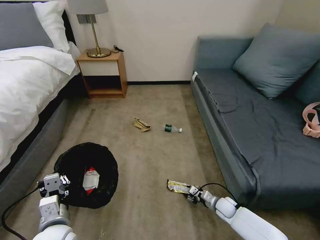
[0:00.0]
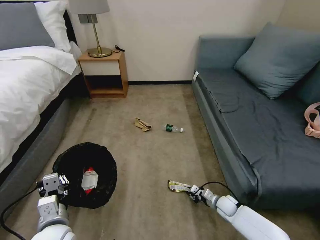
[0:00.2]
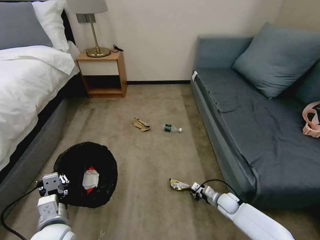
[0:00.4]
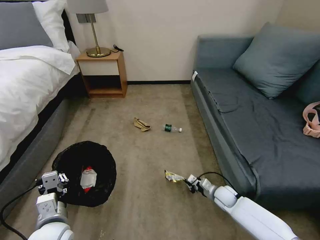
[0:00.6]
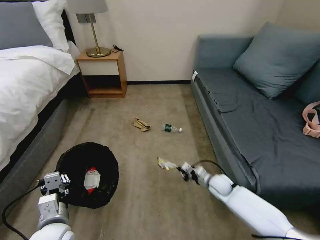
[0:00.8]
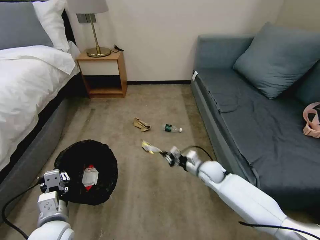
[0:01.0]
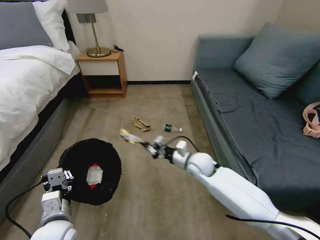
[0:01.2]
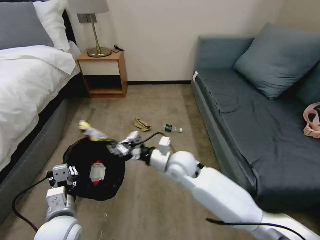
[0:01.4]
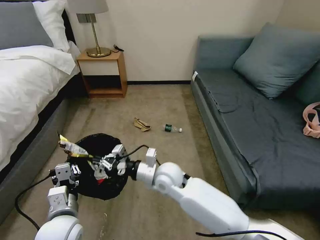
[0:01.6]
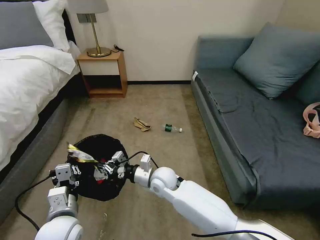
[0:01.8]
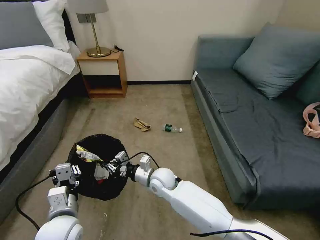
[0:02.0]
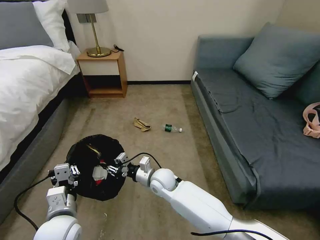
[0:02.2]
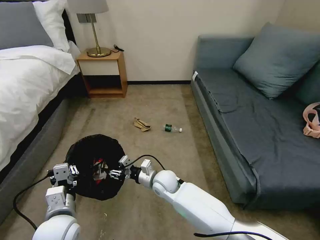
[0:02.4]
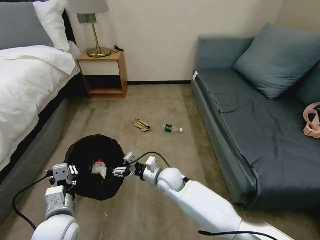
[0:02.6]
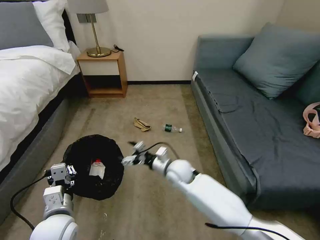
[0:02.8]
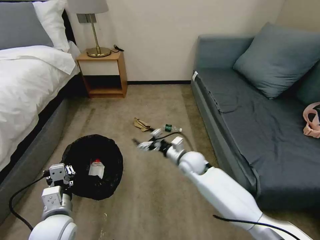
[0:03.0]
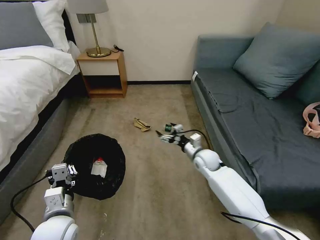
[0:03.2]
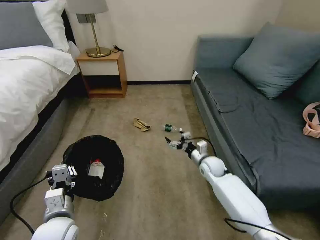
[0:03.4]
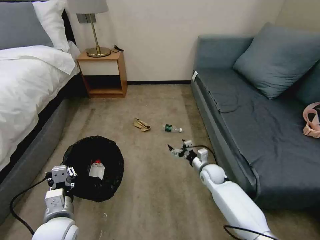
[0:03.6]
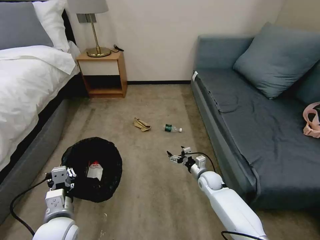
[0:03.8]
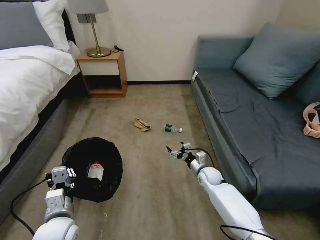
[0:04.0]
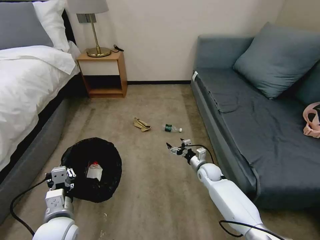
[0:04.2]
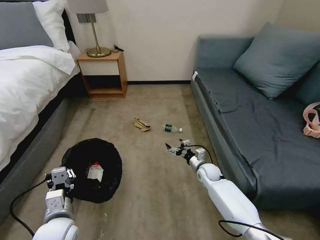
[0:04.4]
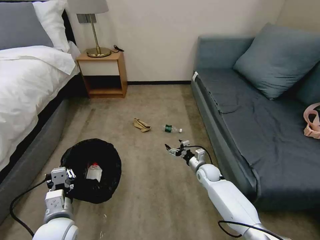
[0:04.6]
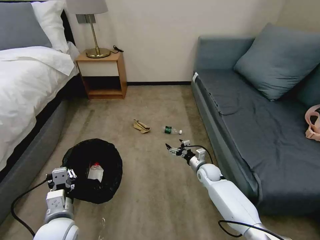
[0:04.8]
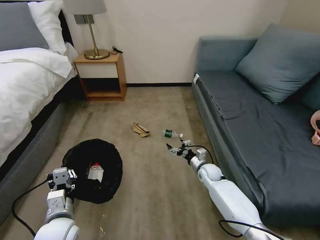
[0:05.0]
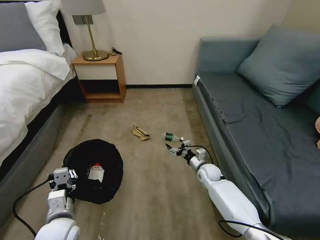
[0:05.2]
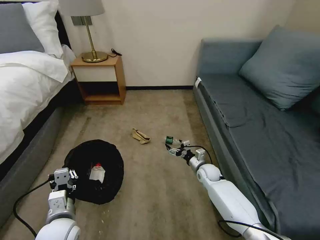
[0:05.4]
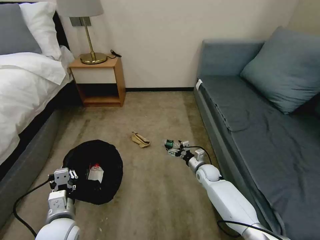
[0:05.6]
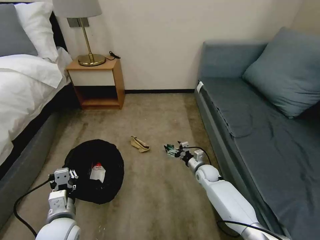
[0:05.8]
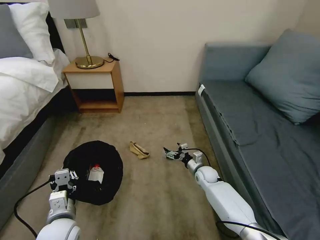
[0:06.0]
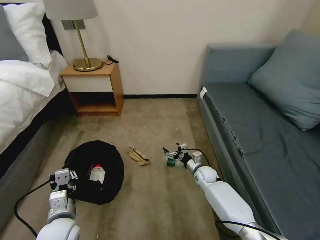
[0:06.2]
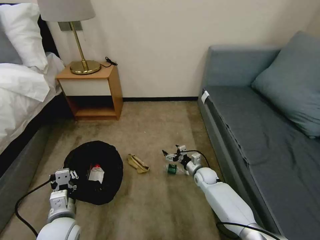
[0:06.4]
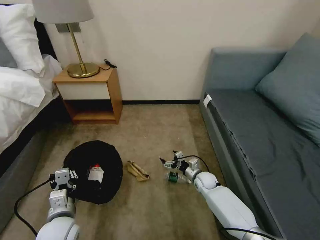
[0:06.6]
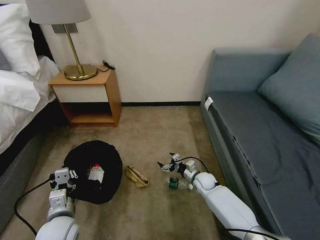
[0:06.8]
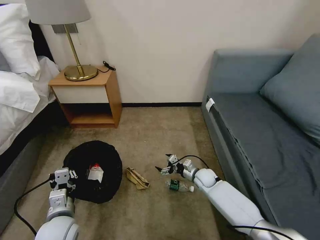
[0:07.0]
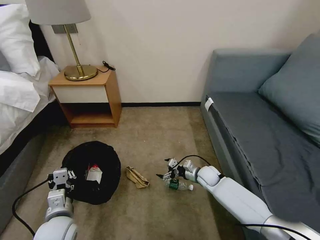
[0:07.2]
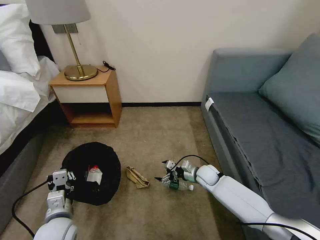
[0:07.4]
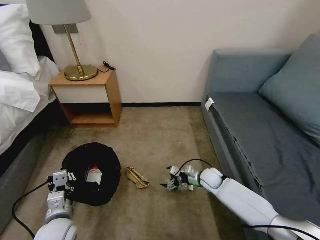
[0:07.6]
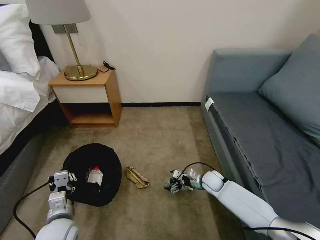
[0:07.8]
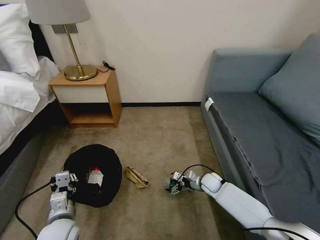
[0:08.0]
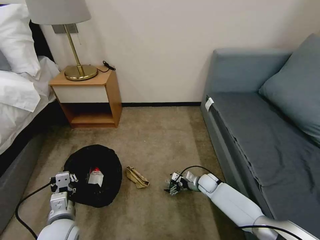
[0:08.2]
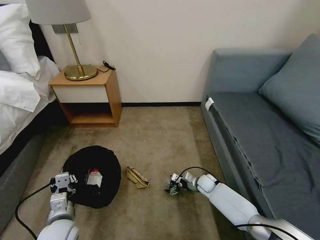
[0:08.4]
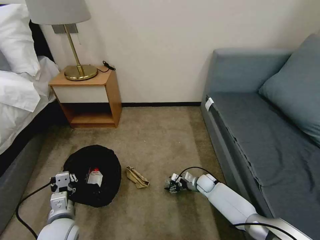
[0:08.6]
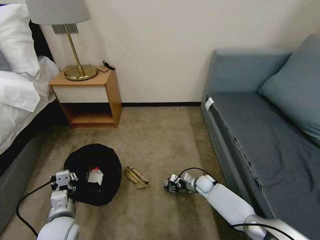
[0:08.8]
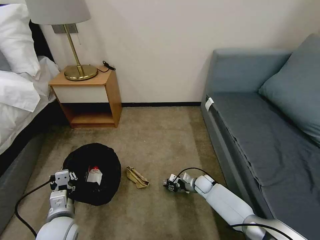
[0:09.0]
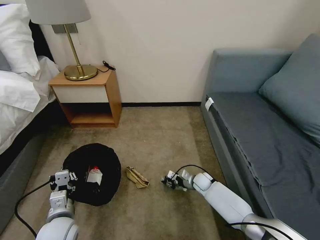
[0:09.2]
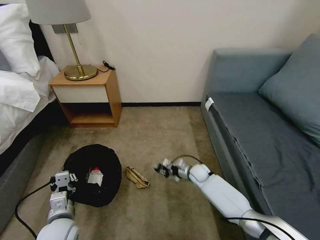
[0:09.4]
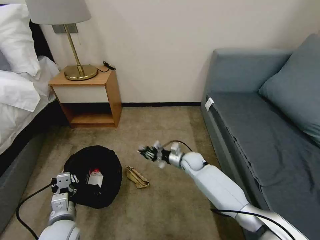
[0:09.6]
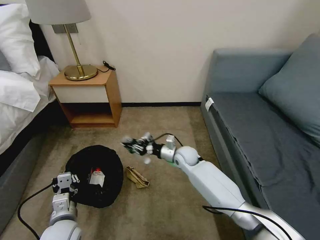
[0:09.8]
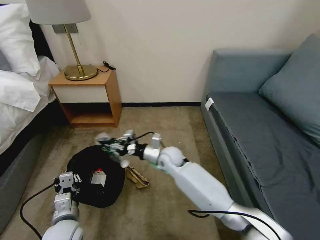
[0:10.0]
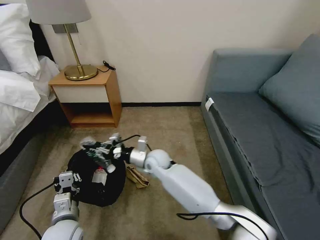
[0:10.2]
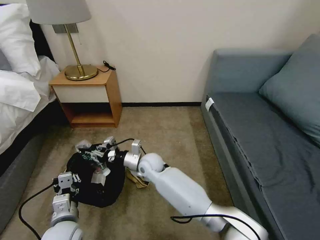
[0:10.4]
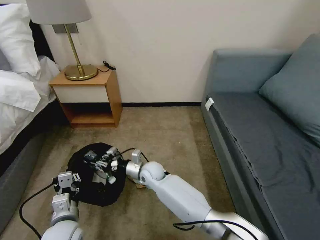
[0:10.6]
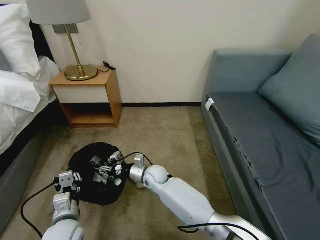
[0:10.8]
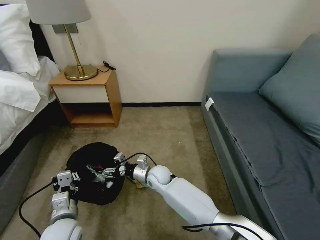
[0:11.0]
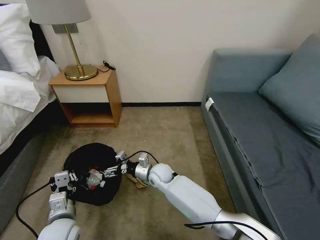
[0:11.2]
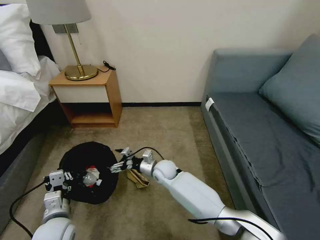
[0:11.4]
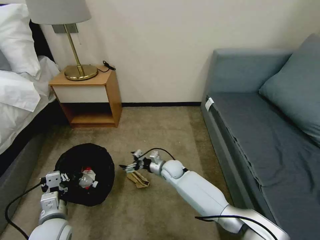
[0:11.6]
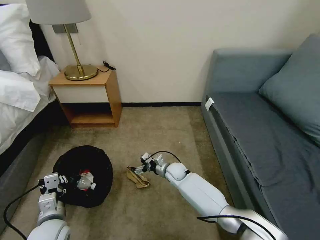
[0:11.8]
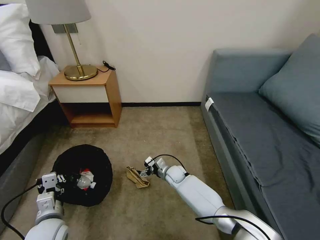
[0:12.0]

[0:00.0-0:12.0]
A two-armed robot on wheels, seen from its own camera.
Task of the whole recording: Pick up the trash bin, then pick up the garbage on the floor and place it into the trash bin.
0:00.0 to 0:01.6: The right gripper shifts some 40 cm upward and to the left, and closes.
0:01.6 to 0:03.0: The right gripper is displaced to the right, forward and downward by approximately 15 cm, and opens up.
0:03.0 to 0:04.4: The right gripper moves downward and to the right, about 15 cm.
0:07.6 to 0:09.0: The right gripper shifts about 10 cm downward, and closes its fingers.
0:09.0 to 0:10.4: The right gripper heads to the left and upward, covering approximately 30 cm.
0:10.4 to 0:12.0: The right gripper is displaced downward and to the right by some 20 cm, and opens its fingers.

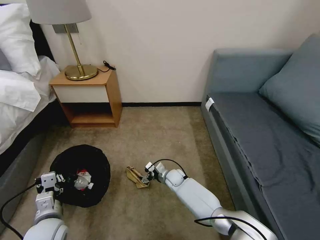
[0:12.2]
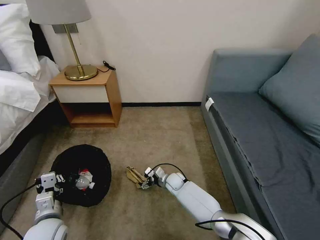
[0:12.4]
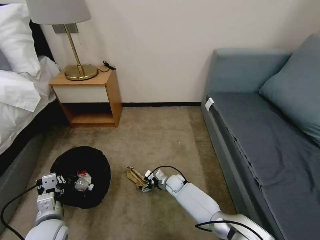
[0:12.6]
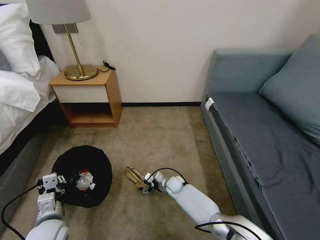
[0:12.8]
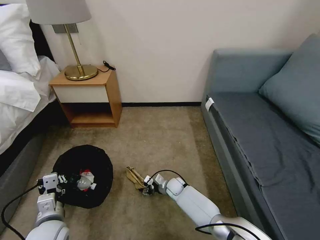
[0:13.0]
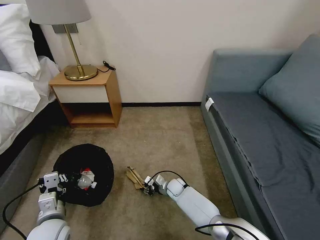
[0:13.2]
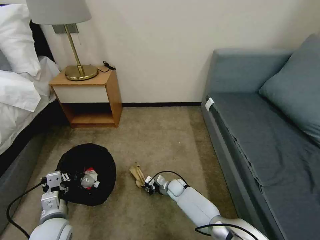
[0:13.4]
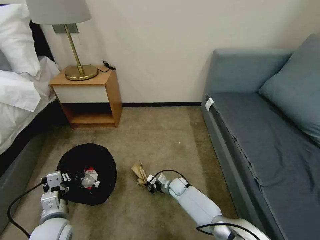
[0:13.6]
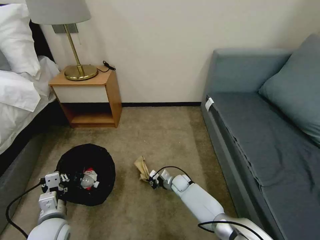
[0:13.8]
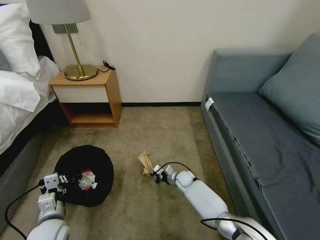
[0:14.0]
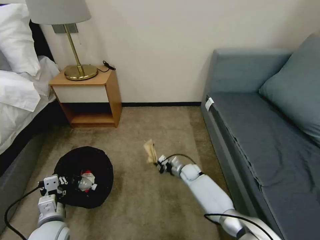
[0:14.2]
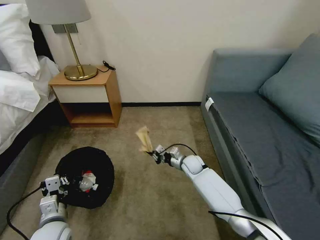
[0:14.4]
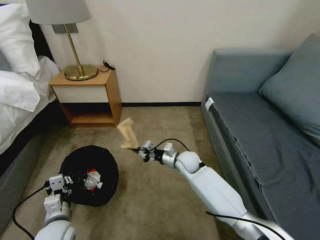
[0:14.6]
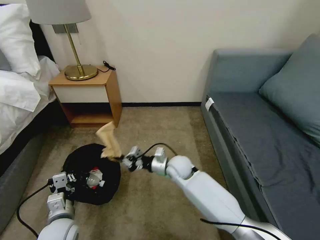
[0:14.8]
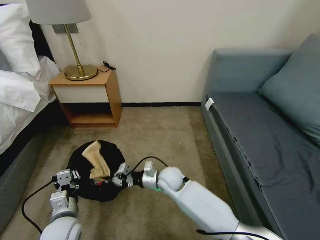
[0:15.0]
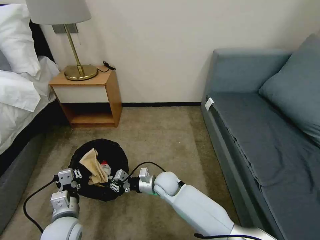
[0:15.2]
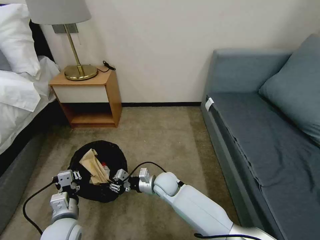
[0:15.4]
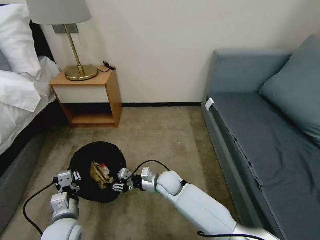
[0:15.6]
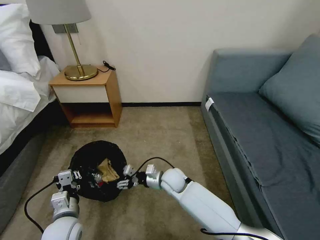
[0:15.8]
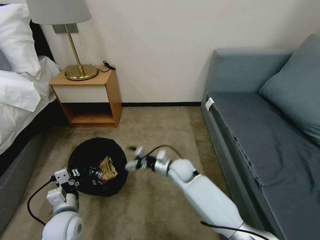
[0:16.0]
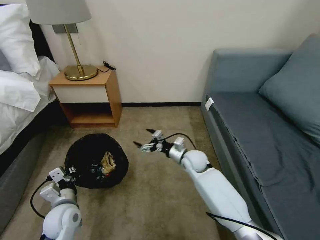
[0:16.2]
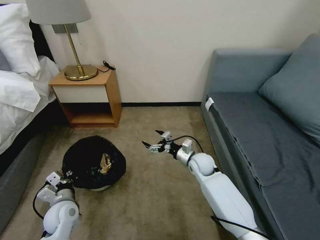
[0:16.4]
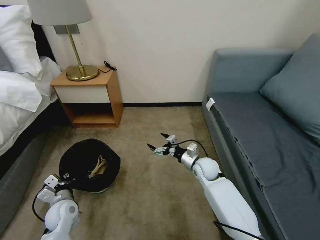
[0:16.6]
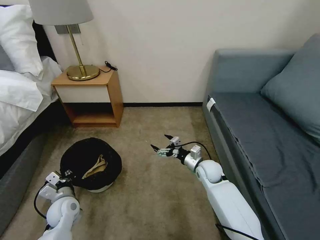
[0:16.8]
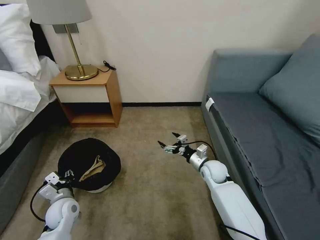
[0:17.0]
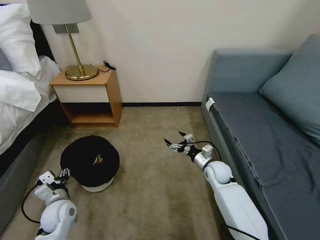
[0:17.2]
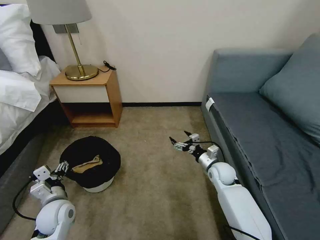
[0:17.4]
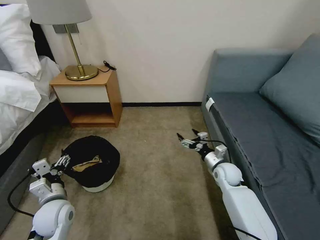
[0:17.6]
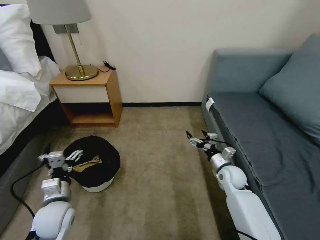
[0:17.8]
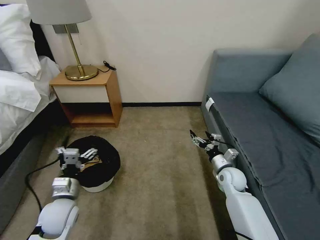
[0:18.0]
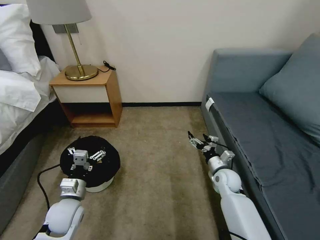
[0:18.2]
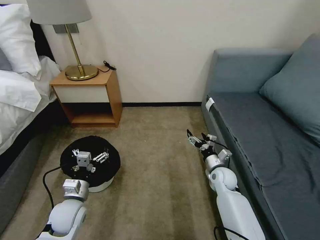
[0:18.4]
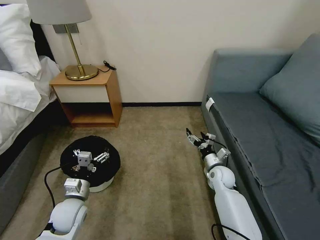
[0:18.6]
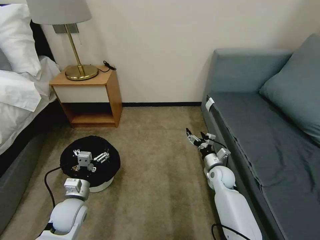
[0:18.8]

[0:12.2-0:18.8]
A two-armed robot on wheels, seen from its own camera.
Task of the whole recording: Pick up the trash bin, then pick up the garbage on the floor and place it into the trash bin.
0:12.2 to 0:13.8: The right gripper closes its fingers.
0:13.8 to 0:15.4: The right gripper travels upward, to the left and backward by about 20 cm.
0:15.4 to 0:17.2: The left gripper shifts approximately 10 cm forward and to the left, and opens its fingers; the right gripper moves to the right, about 20 cm, and opens its fingers.
0:17.2 to 0:18.8: The left gripper shifts by roughly 5 cm.
